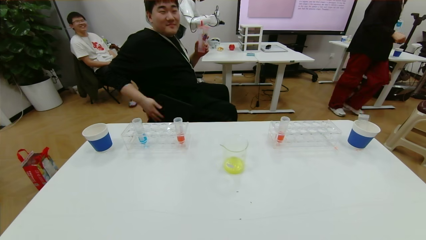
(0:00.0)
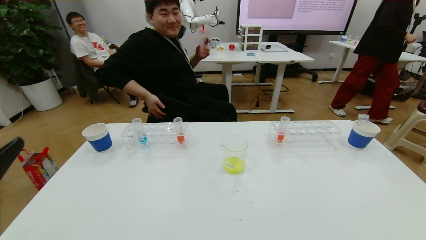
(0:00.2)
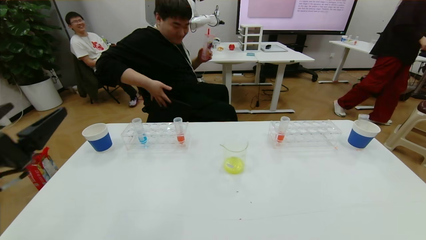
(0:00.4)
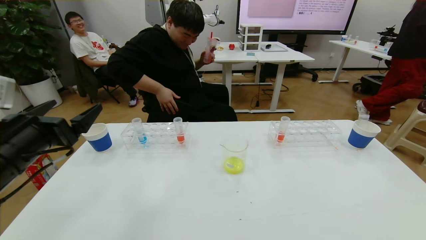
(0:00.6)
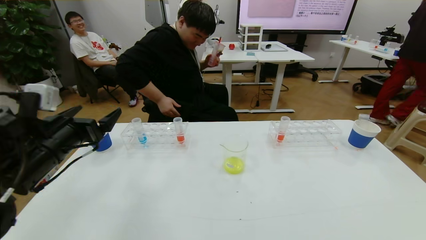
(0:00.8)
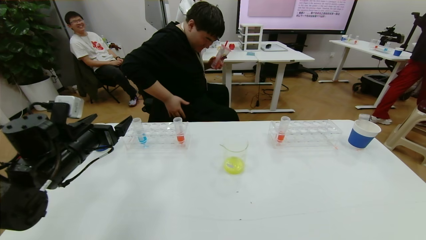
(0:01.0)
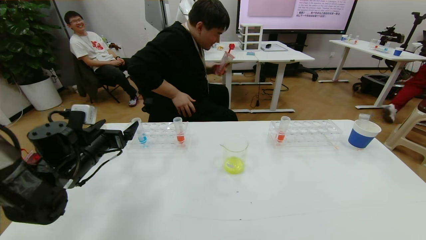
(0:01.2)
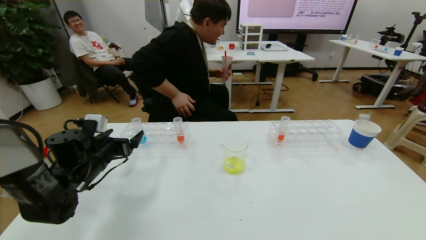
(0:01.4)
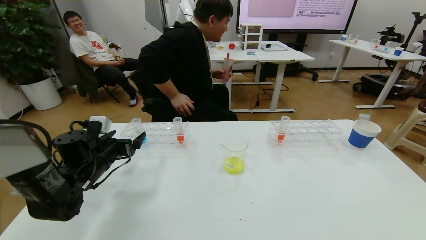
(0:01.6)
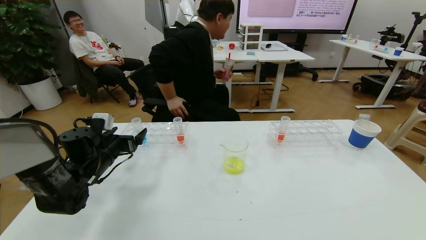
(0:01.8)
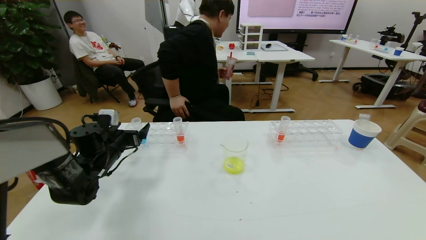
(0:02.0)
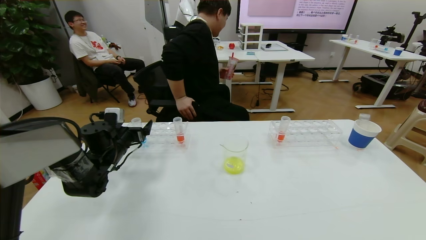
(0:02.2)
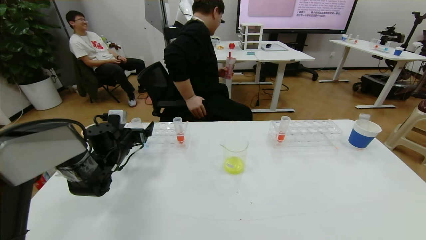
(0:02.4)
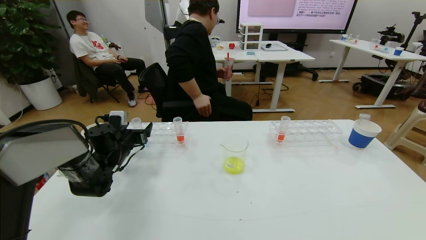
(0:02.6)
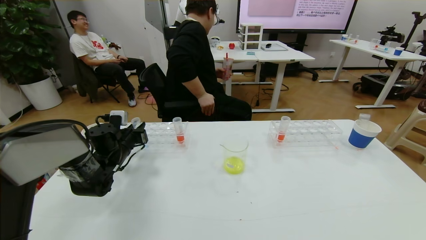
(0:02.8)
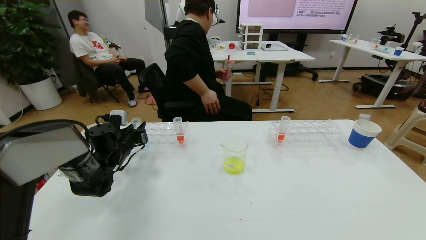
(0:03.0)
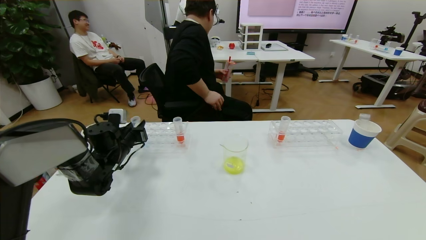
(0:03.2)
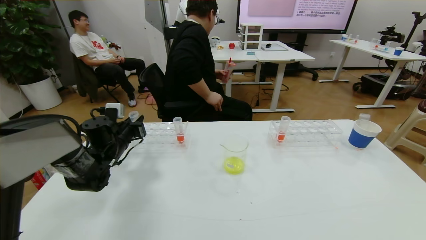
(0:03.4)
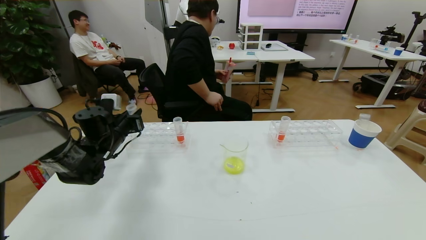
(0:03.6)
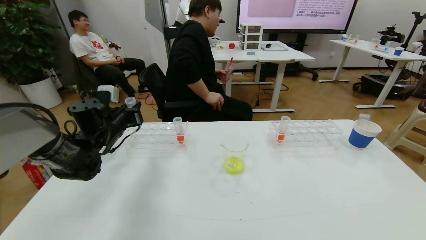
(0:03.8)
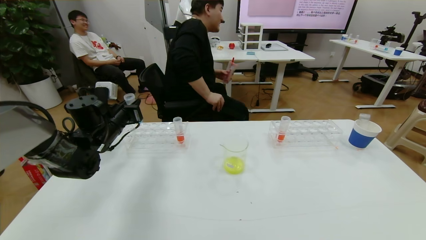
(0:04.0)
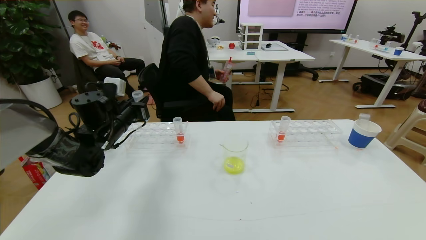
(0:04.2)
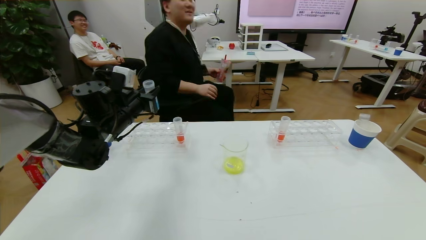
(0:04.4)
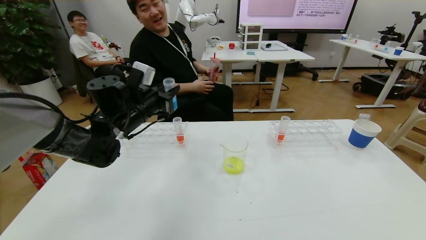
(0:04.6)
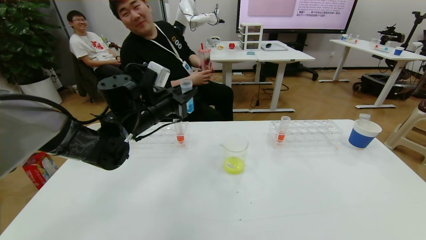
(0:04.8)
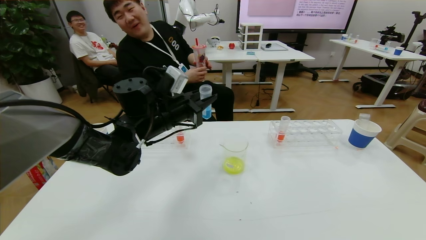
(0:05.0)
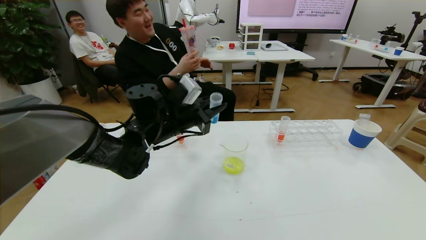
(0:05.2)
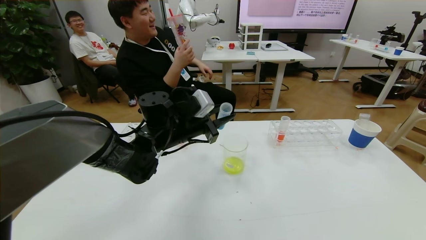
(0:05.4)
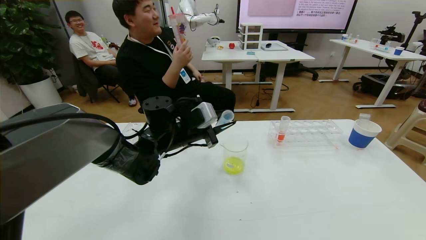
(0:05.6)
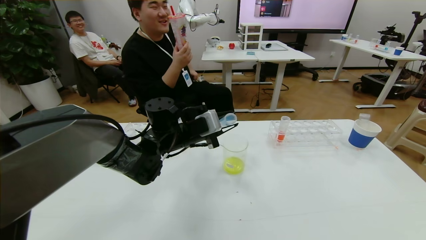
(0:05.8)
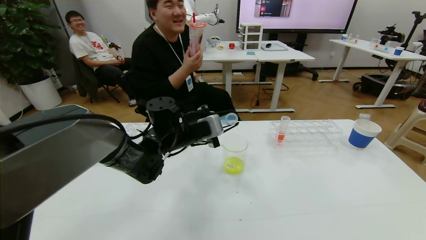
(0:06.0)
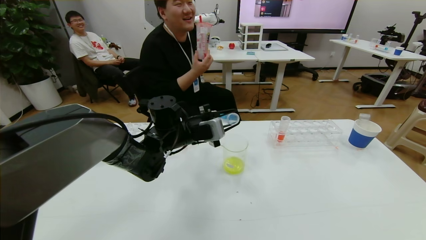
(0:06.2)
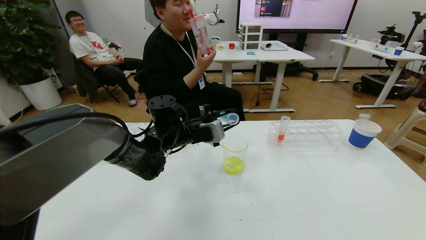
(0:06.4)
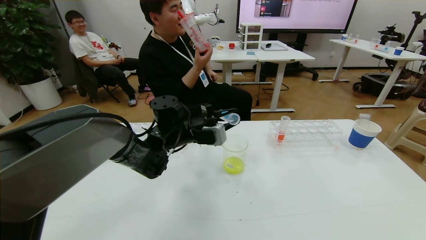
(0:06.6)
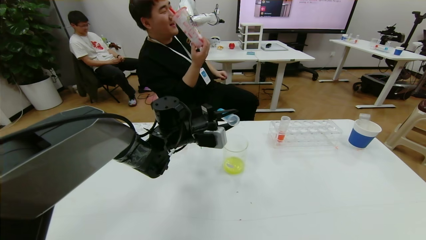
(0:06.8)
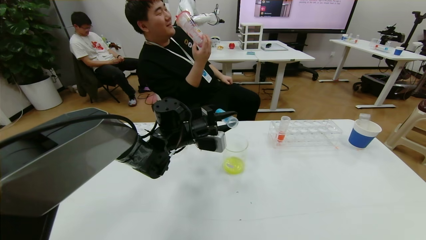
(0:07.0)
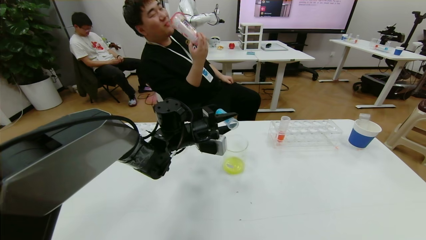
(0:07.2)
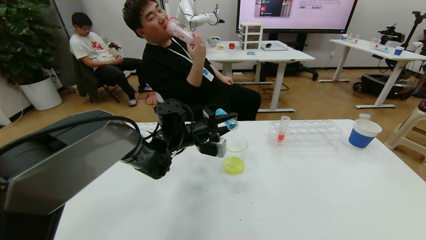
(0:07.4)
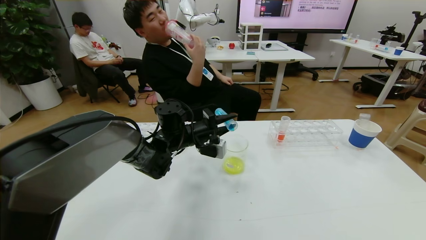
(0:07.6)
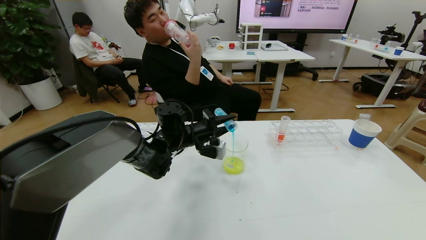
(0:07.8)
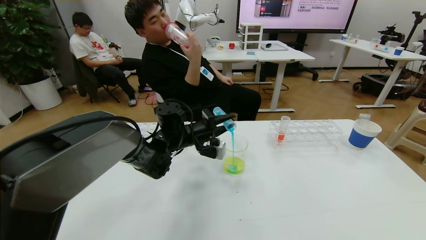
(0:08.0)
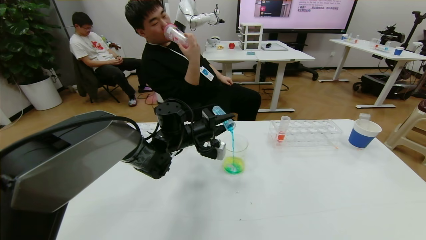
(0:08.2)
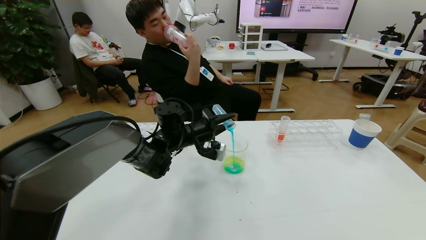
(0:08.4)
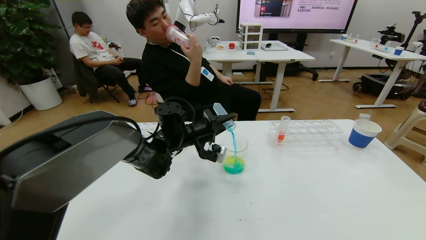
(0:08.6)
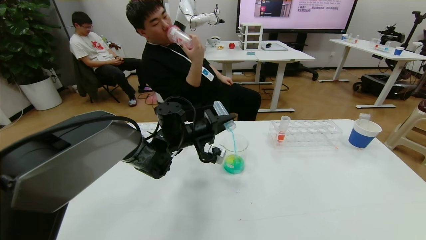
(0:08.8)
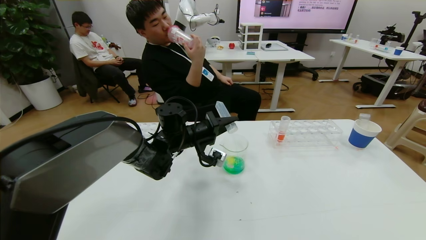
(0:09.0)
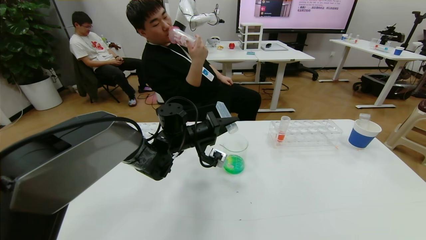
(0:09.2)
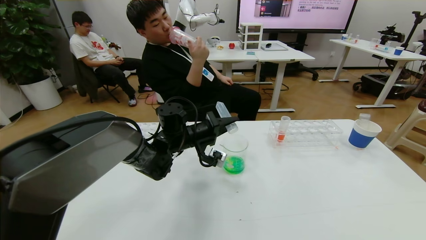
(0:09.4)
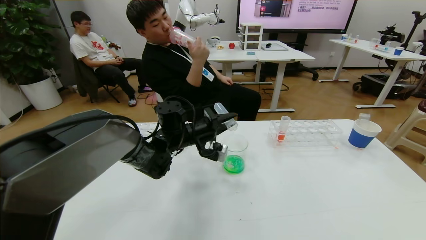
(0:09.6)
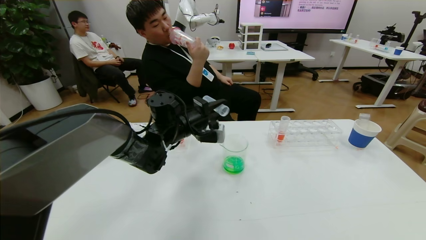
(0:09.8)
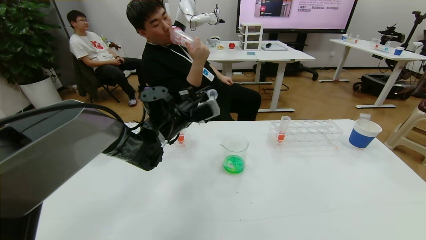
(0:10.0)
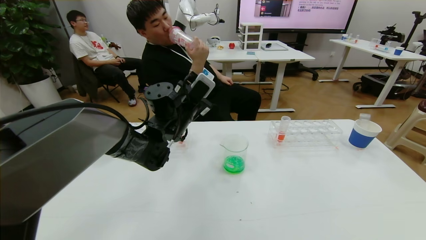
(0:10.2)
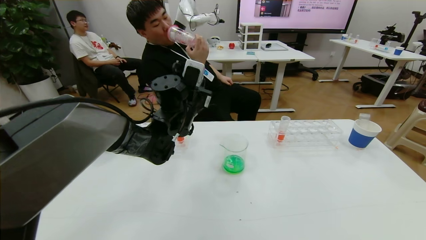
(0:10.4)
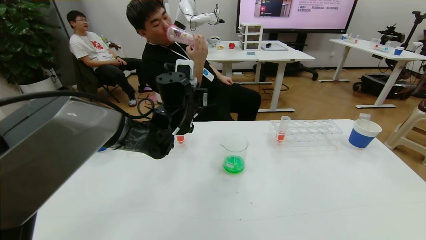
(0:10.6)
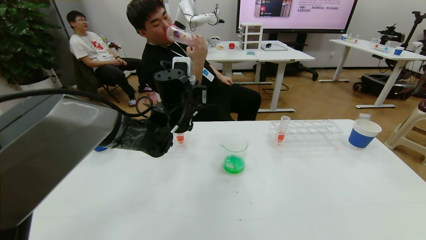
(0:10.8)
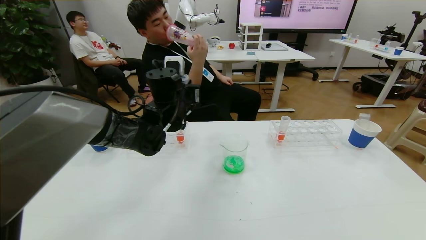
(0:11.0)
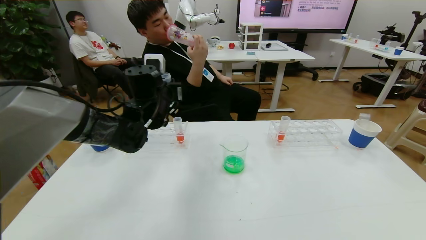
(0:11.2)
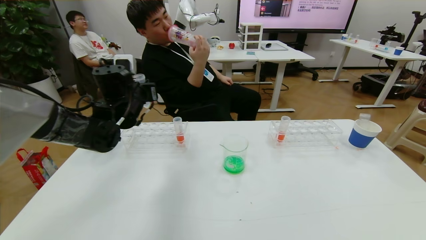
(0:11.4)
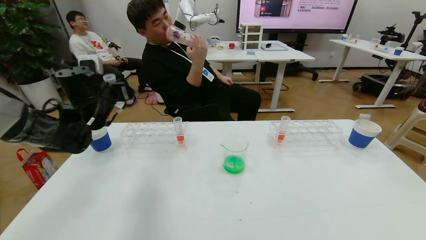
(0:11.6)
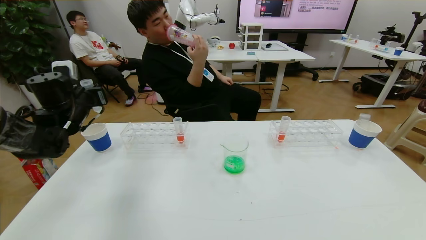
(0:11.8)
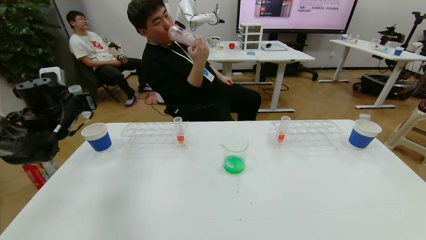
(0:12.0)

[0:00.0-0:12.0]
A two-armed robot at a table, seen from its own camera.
Task of the whole recording: pick up the test tube with yellow pigment and the test tube with blue pigment by grippers and pour them into the beaker.
0:00.0 to 0:01.6: The left gripper travels forward and downward by roughly 35 cm.
0:01.6 to 0:03.0: The left gripper is displaced forward by roughly 5 cm, and closes its fingers.
0:03.0 to 0:04.4: The left gripper travels upward and to the right by approximately 15 cm.
0:04.4 to 0:06.0: The left gripper is displaced to the right by approximately 15 cm.
0:09.0 to 0:10.4: The left gripper moves upward, roughly 10 cm.
0:10.4 to 0:12.0: The left gripper is displaced to the left by about 30 cm.

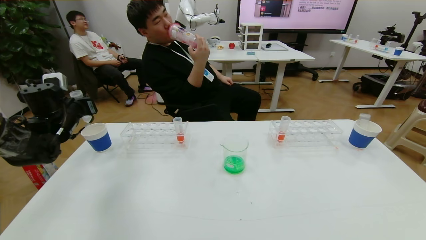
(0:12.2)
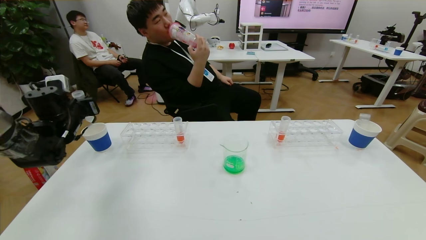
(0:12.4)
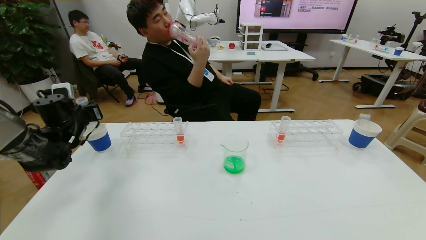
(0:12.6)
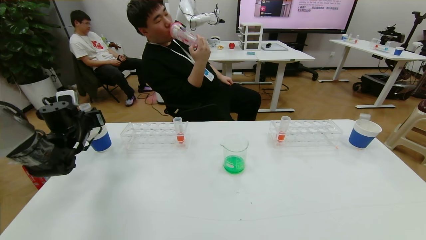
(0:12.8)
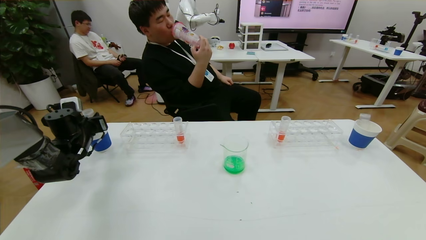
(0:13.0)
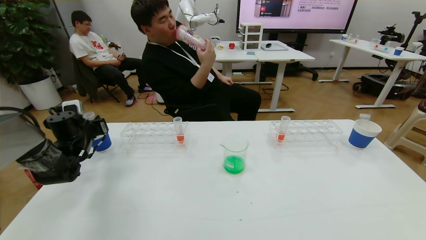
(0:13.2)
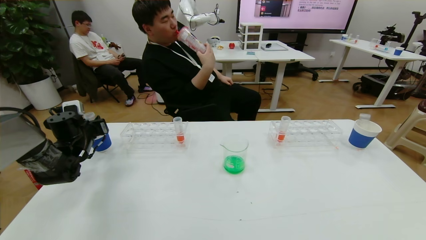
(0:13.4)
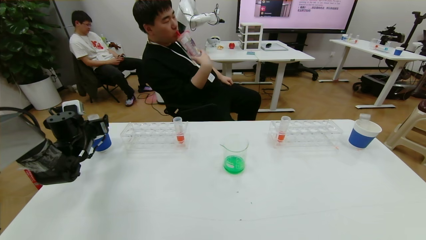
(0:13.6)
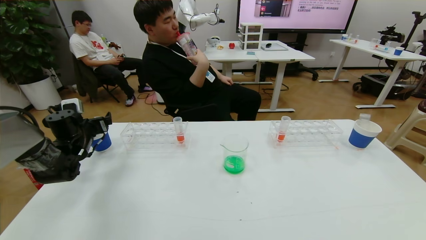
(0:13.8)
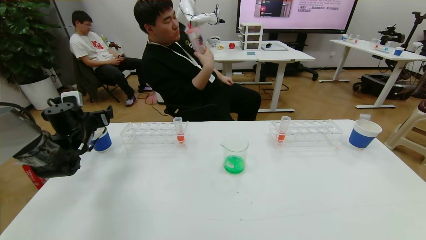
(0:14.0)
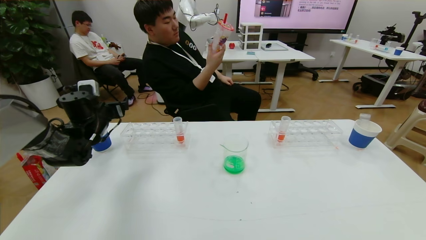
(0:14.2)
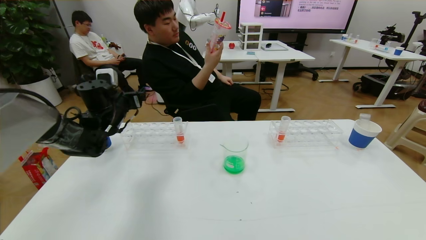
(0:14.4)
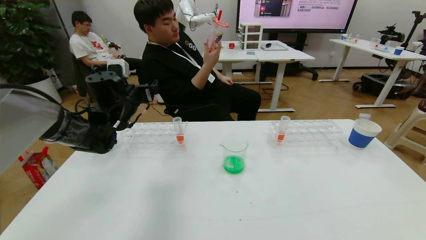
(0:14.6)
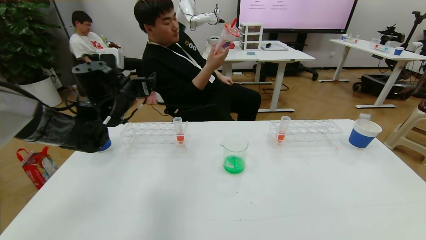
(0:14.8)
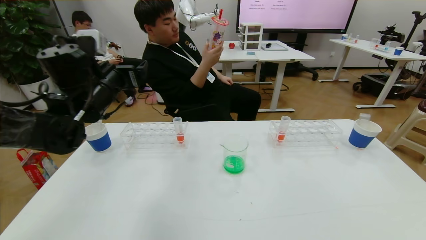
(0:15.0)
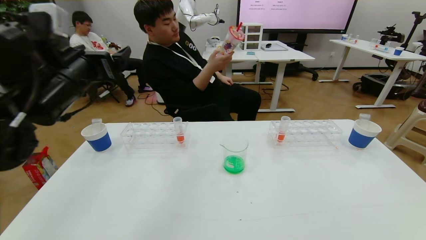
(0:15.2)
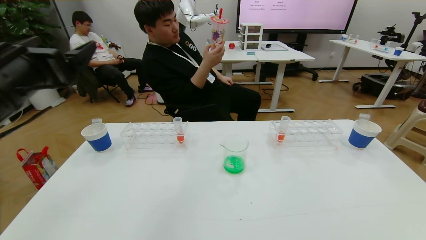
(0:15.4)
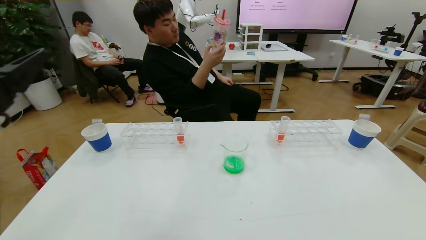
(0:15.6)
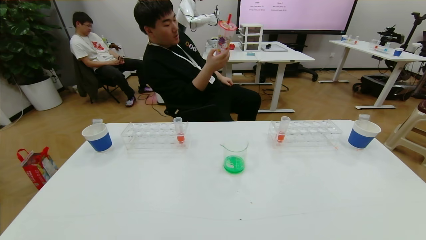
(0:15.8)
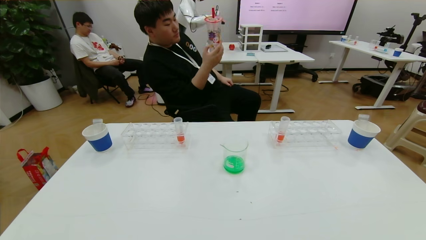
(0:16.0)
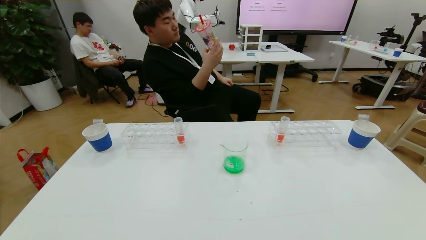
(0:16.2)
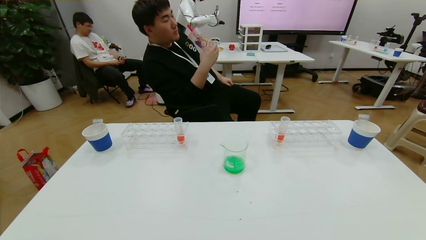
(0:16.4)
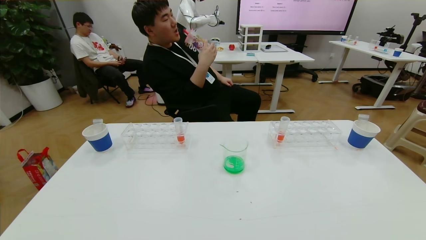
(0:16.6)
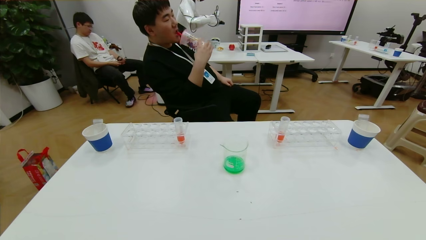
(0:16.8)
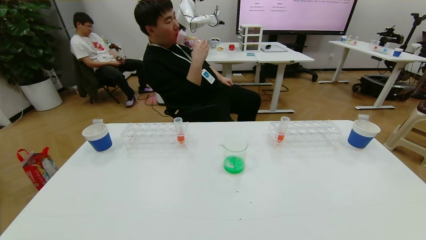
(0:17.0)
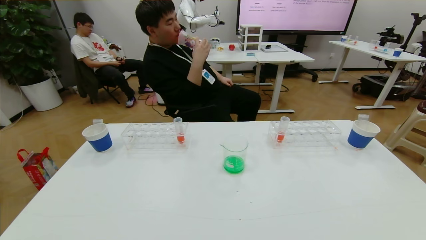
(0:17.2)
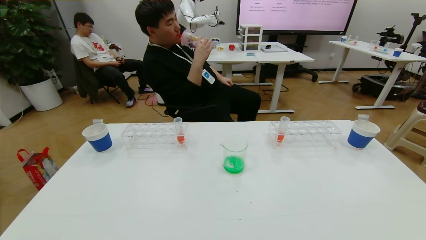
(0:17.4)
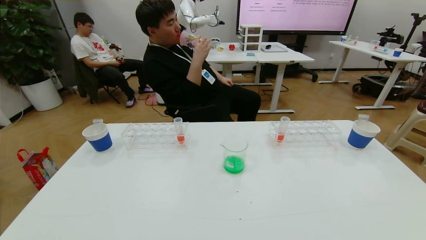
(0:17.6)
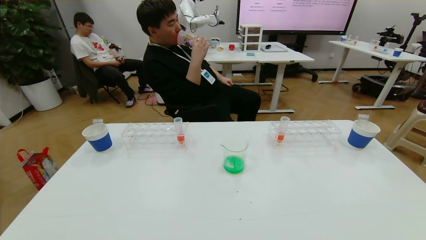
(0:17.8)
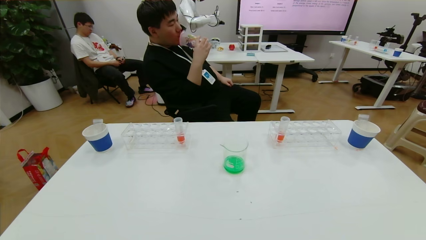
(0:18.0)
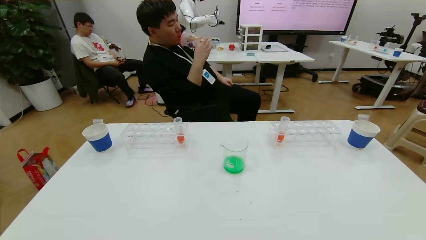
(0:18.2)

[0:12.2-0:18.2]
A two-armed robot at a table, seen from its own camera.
Task of the whole recording: pick up the test tube with yellow pigment and the test tube with blue pigment by grippers and pour them into the beaker.
Step, 0:12.2 to 0:18.2: Pour the blue reagent into the graduated cylinder and place the test tube into the paper cup.
0:12.2 to 0:13.8: The left gripper is displaced downward by about 5 cm, and opens its fingers.
0:13.8 to 0:15.2: The left gripper moves upward, to the right and backward, about 25 cm.
0:15.2 to 0:16.6: The left gripper travels backward by approximately 30 cm.
0:16.6 to 0:18.2: The left gripper shifts about 15 cm downward.
